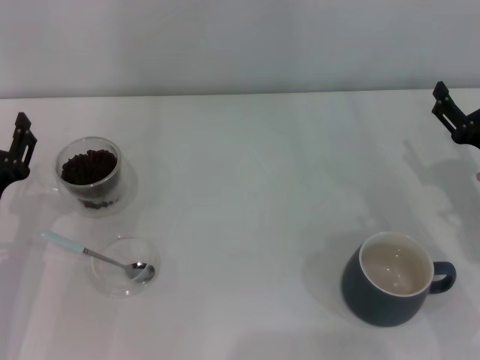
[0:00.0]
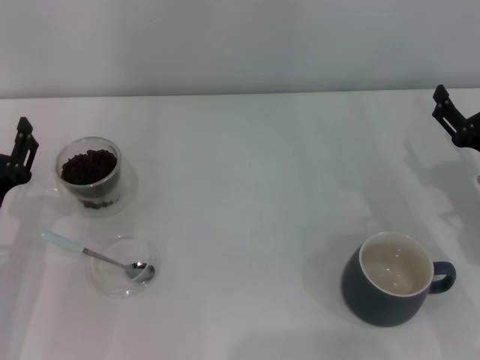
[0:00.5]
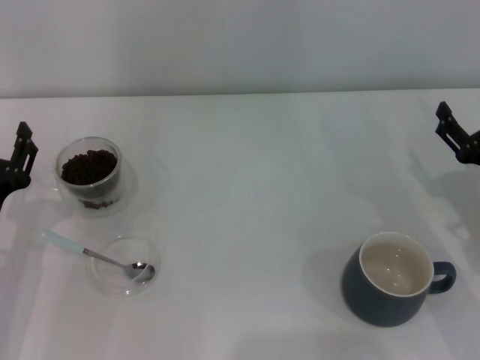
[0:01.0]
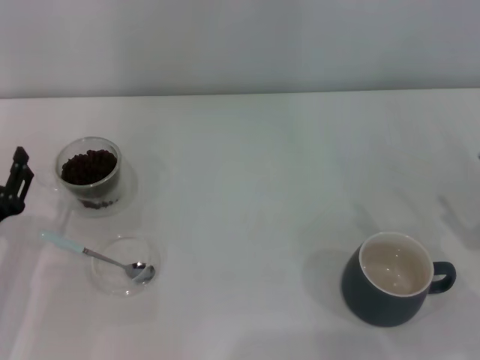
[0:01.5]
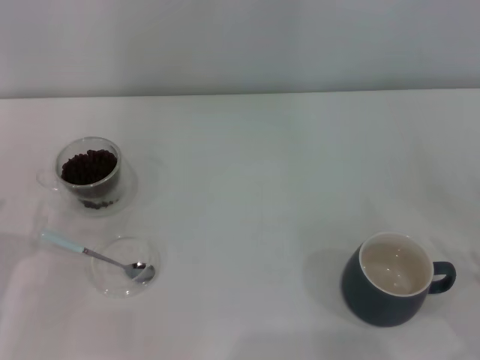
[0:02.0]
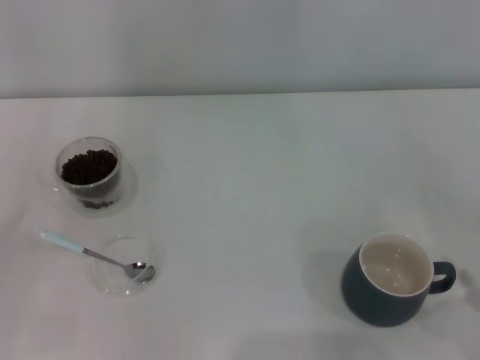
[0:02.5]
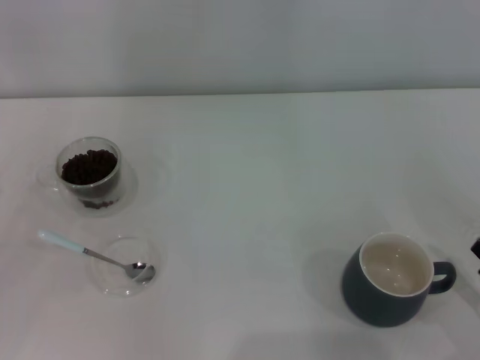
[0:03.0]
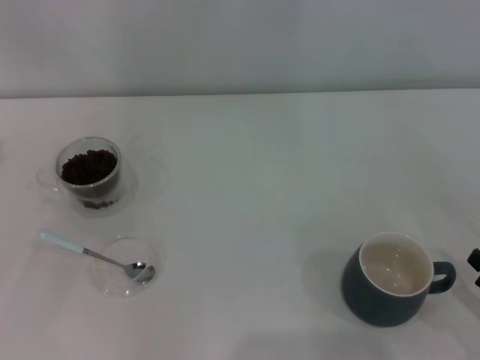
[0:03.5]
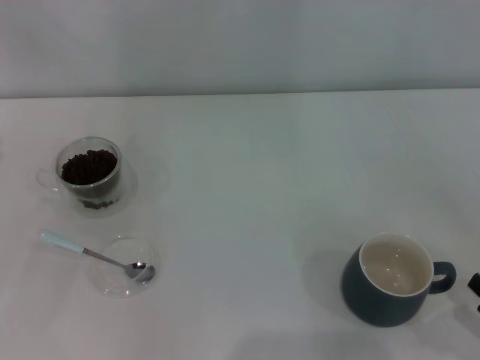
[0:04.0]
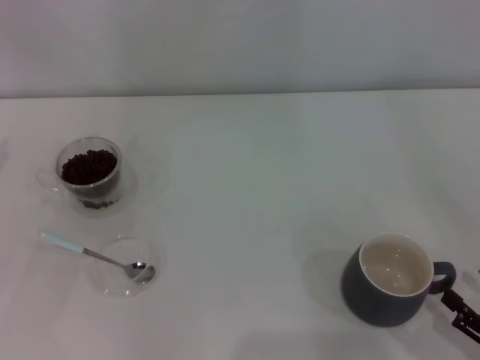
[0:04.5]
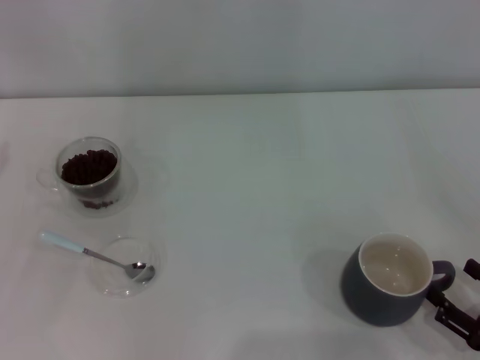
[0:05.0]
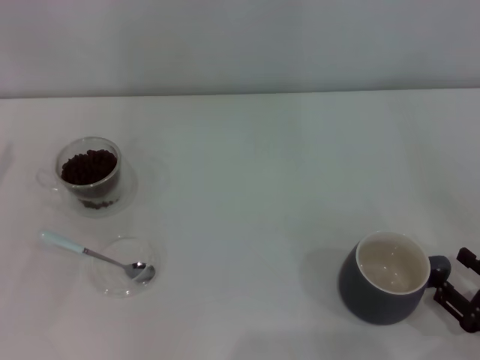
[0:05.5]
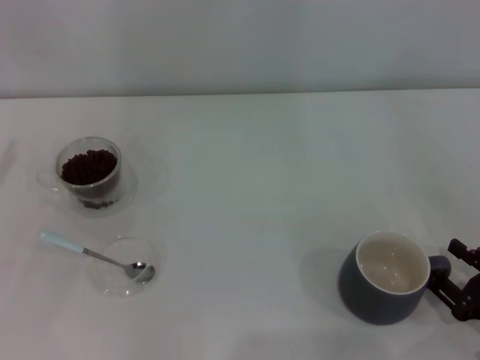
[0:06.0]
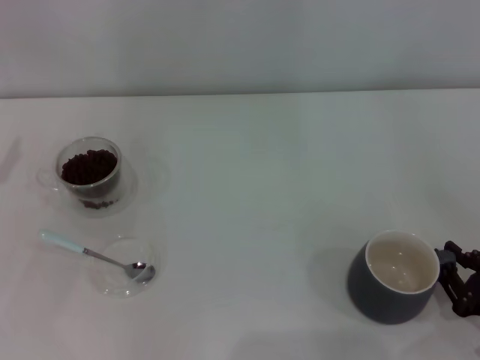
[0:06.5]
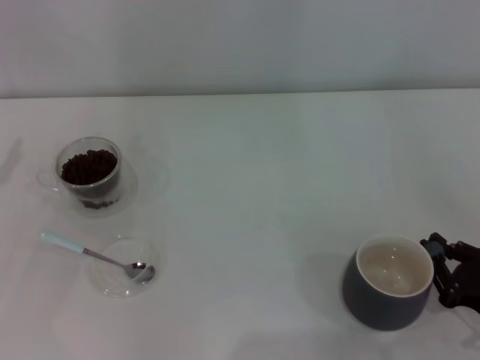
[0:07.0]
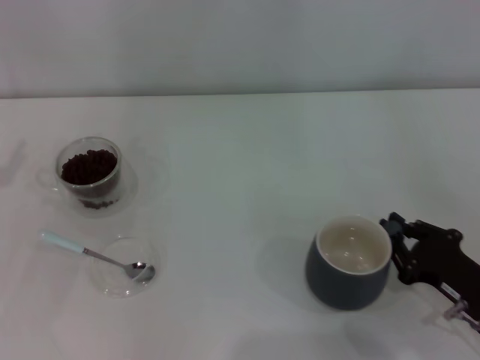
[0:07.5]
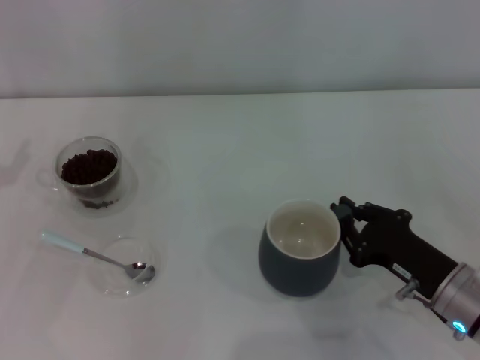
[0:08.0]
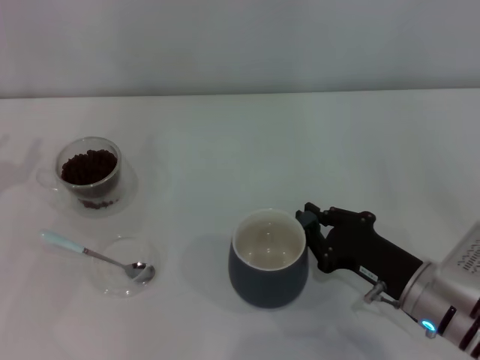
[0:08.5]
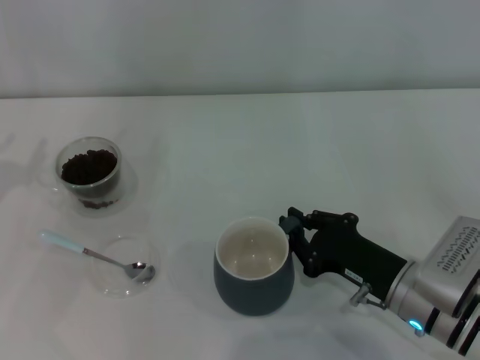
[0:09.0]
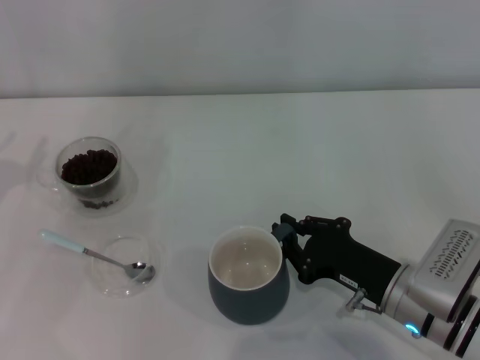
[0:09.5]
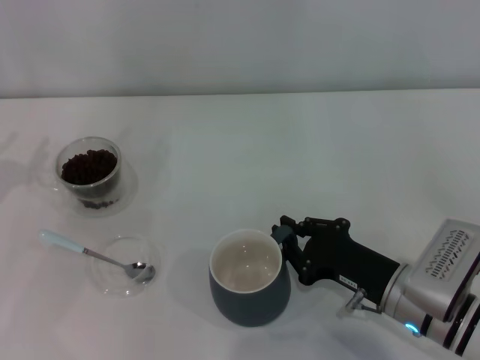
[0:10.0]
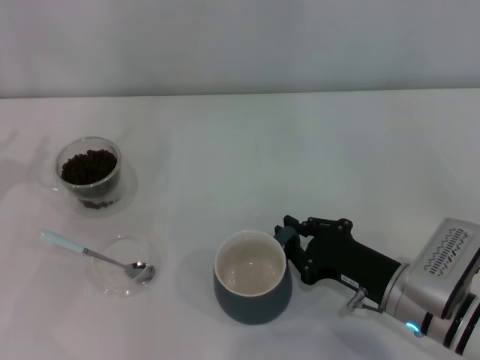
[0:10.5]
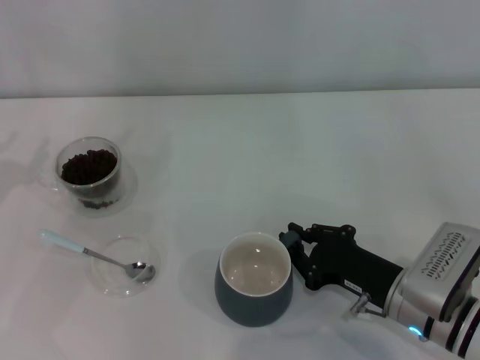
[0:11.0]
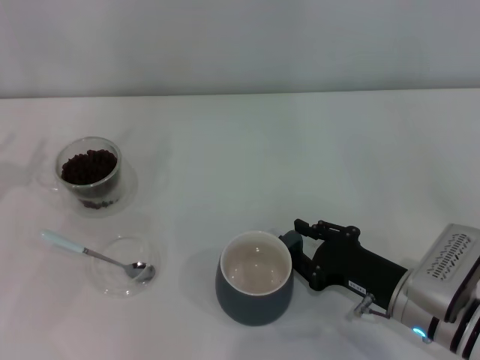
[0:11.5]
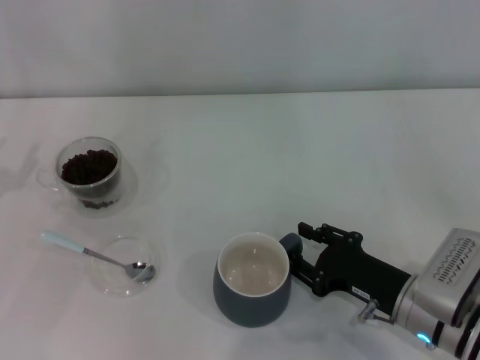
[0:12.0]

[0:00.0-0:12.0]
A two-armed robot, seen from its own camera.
Task of the whole recording: Use a blue spoon to take out the coffee beans from the glass and pour them into the gray cup.
0:00.0 to 0:02.0: The right gripper shifts some 15 cm backward. Meanwhile the left gripper shifts some 5 cm backward.
0:04.0 to 0:06.0: The right gripper moves about 5 cm.
0:06.0 to 0:08.0: The right gripper goes about 10 cm to the left and forward, and closes its fingers.
0:08.0 to 0:10.0: The grippers move only a little.
0:10.0 to 0:12.0: The right gripper opens.

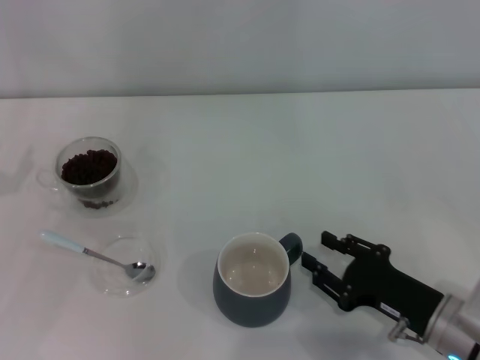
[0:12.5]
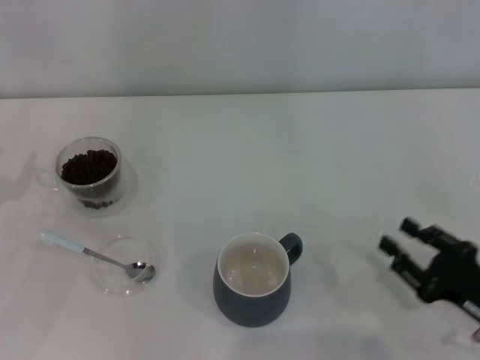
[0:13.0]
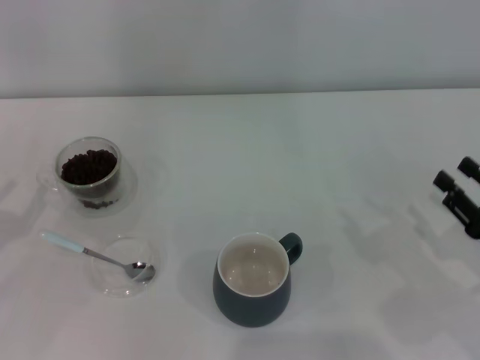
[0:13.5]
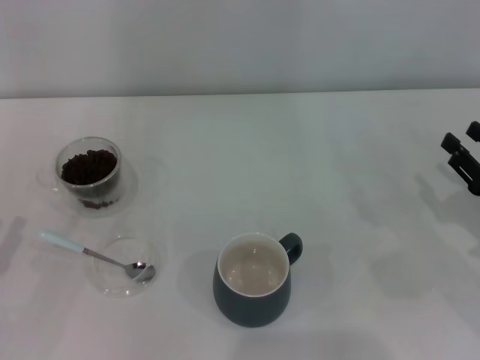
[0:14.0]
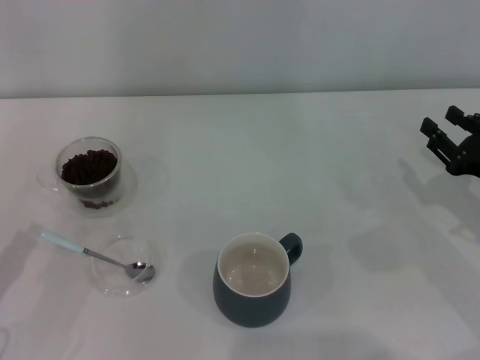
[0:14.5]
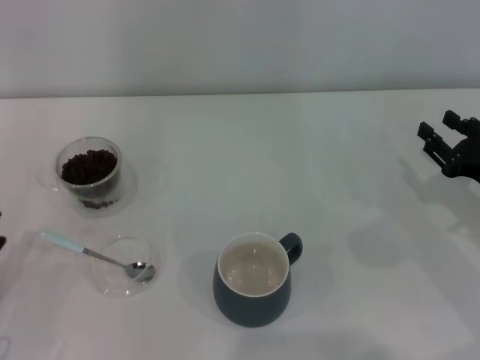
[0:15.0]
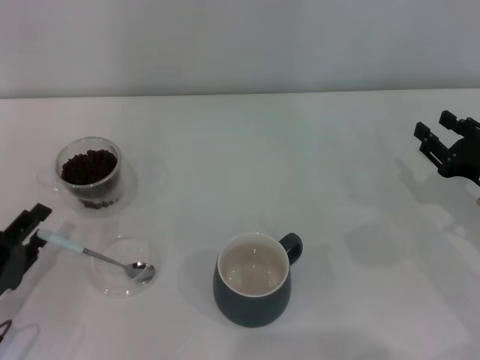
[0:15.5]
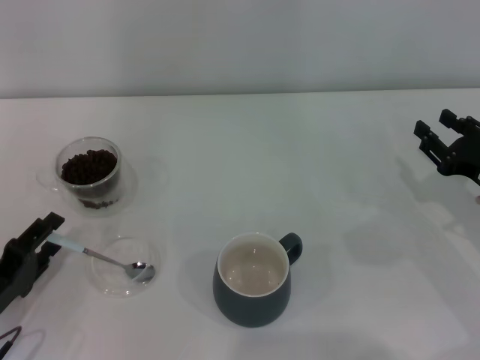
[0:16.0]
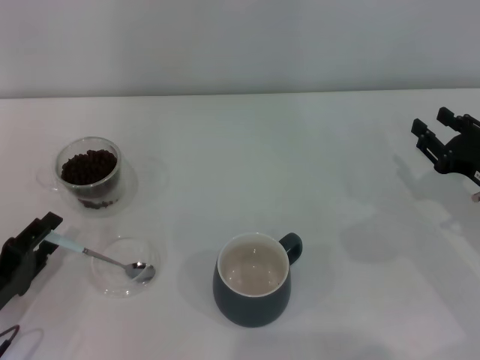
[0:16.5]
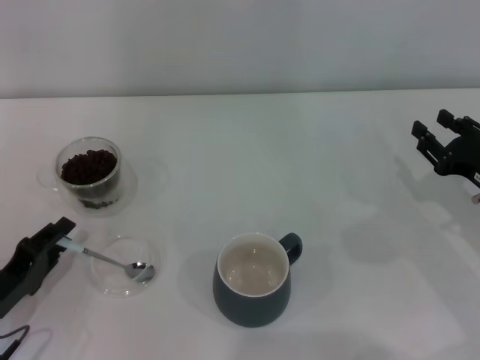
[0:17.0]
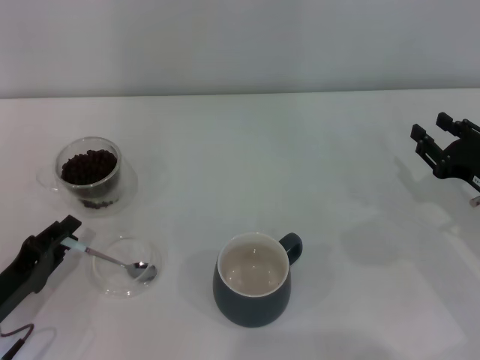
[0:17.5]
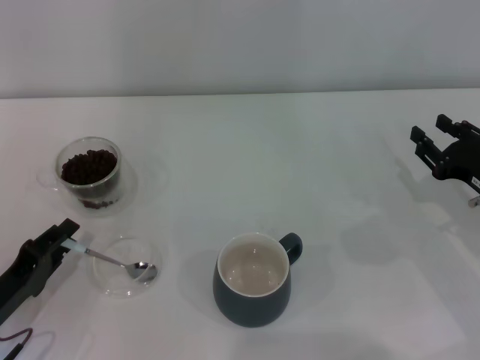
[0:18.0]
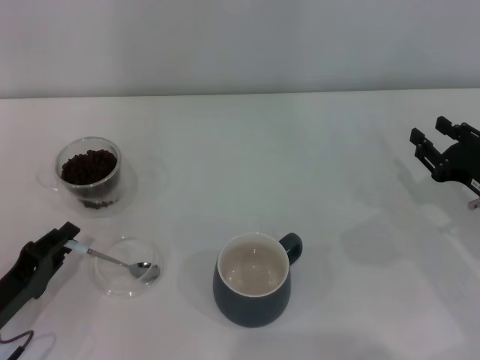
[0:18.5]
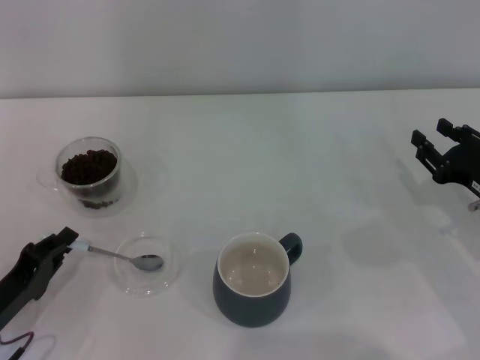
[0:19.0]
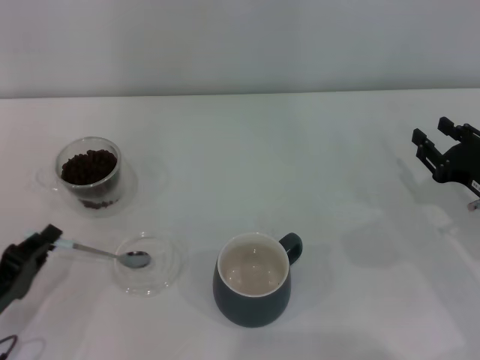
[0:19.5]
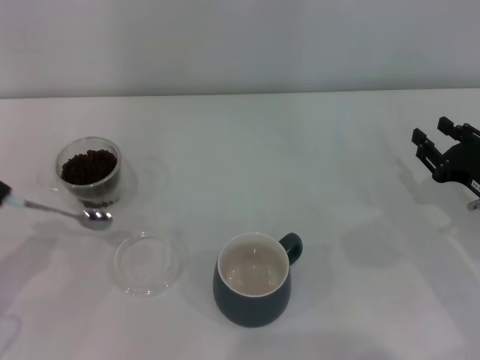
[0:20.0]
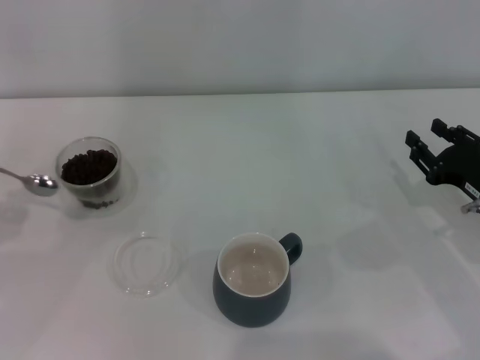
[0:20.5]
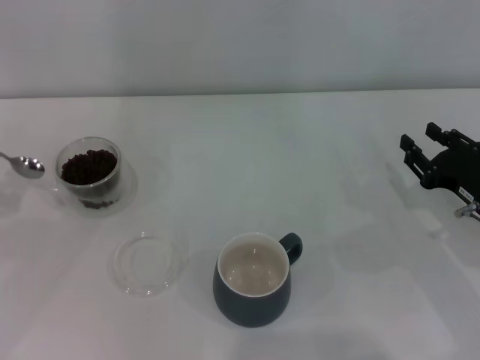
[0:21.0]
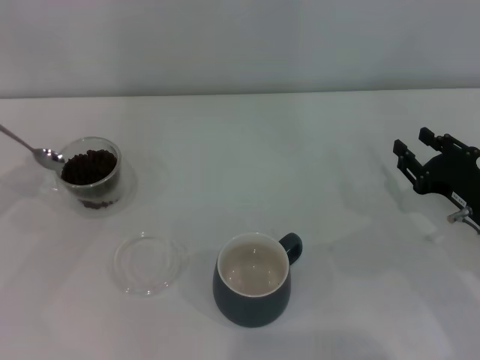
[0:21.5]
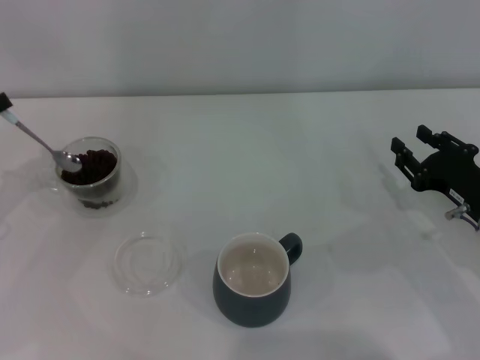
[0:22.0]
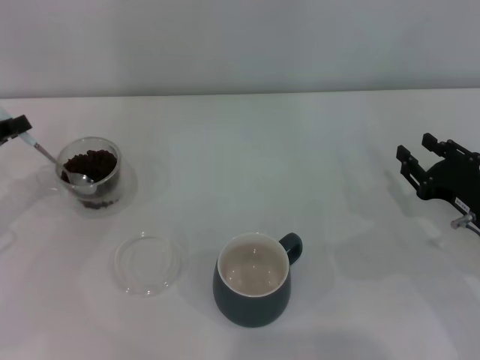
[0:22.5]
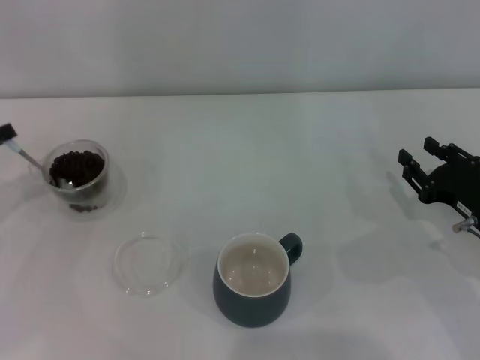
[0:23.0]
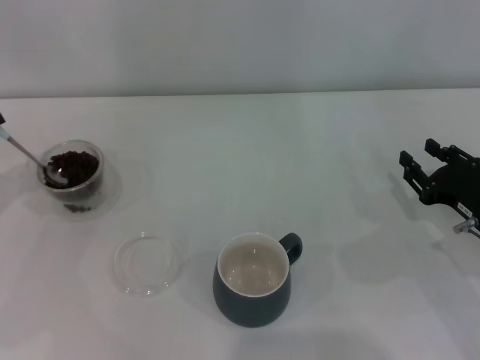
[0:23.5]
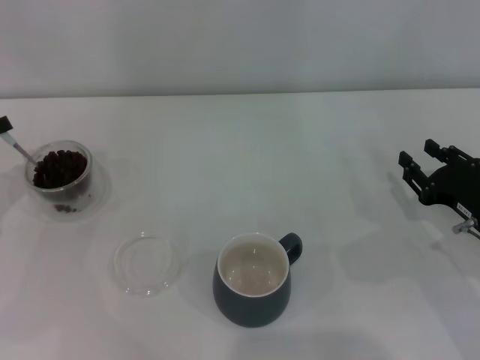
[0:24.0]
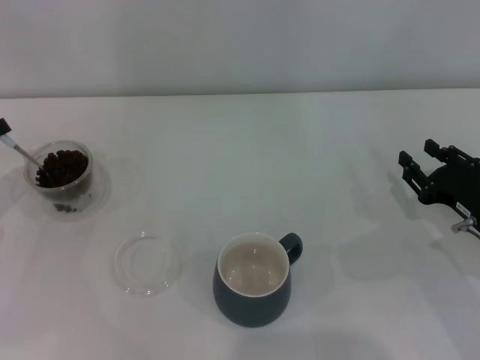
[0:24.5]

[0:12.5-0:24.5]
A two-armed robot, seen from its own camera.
Task of the whole recording: Use a blue spoon to take out the coffee beans from the glass and pour them into the gray cup.
Step, 0:13.0 to 0:19.5: Pick up the spoon with the right gripper.
0:12.5 to 0:14.5: The right gripper shifts some 15 cm to the right, forward and upward. Meanwhile the left gripper is displaced backward and downward by roughly 15 cm.
0:14.5 to 0:16.5: The left gripper changes place by roughly 5 cm.
0:16.5 to 0:18.5: The left gripper closes up.
0:18.5 to 0:20.5: The left gripper goes roughly 15 cm upward and to the left, and closes its fingers.
0:20.5 to 0:22.5: The left gripper moves forward, approximately 10 cm.
0:22.5 to 0:24.5: There are only small adjustments of the grippers.

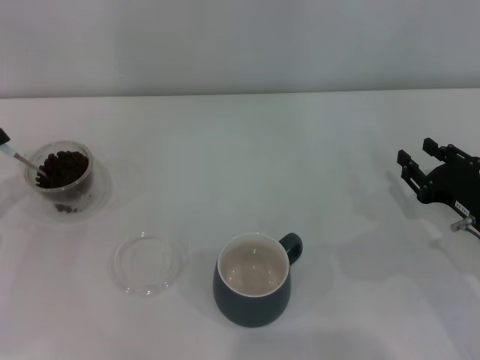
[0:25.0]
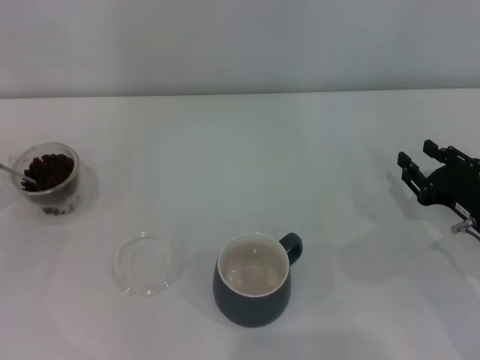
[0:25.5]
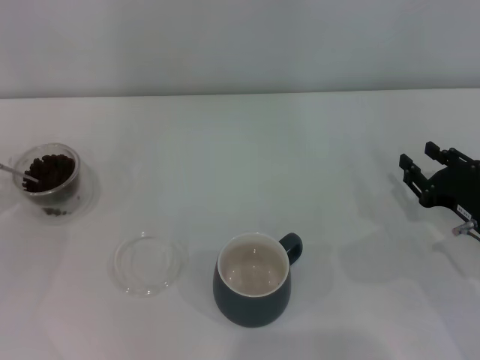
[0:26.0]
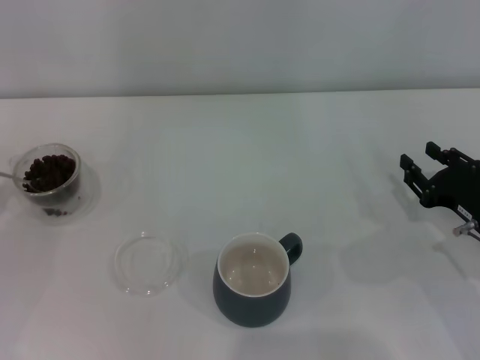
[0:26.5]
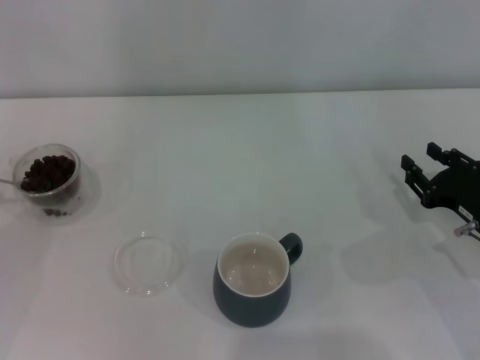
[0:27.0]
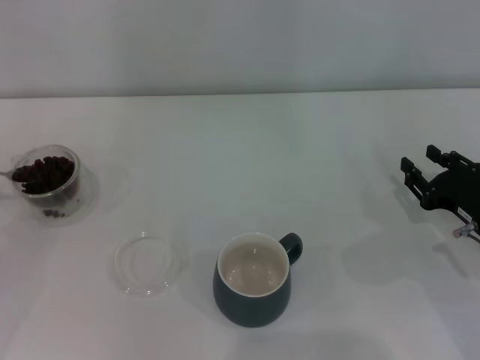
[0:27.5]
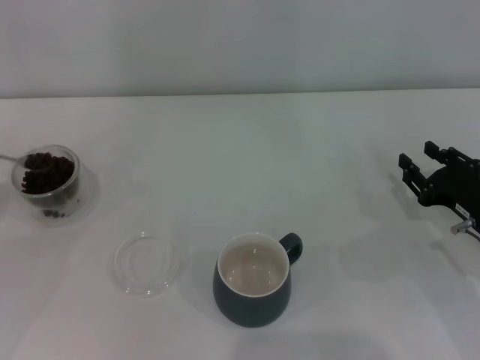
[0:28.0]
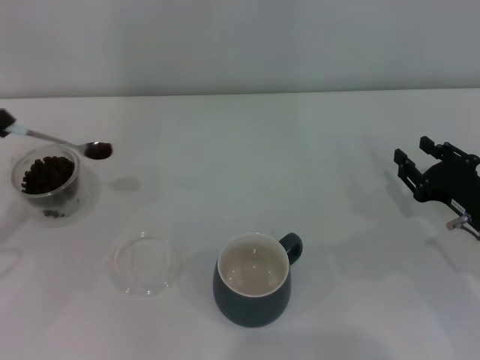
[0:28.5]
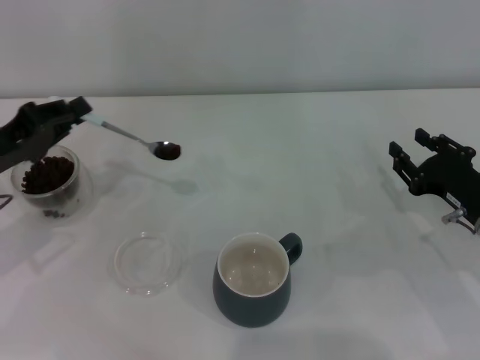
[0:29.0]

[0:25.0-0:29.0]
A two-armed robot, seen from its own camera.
Task of the whole recording: Use a blue spoon to take out the coffee beans from the glass and pour them into the gray cup.
0:25.0 to 0:27.0: The left gripper is displaced backward by approximately 5 cm.
0:27.0 to 0:29.0: The left gripper is displaced to the right and forward by approximately 10 cm.
